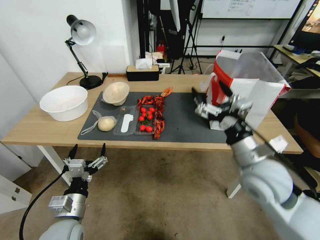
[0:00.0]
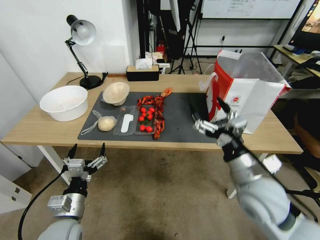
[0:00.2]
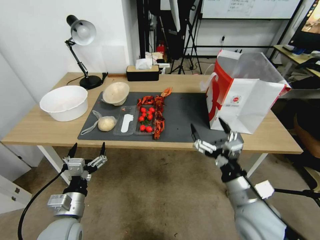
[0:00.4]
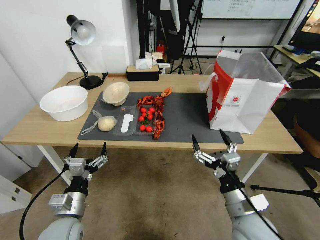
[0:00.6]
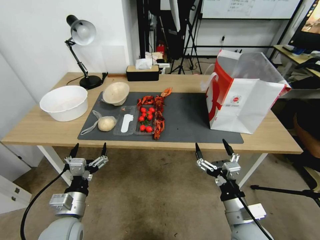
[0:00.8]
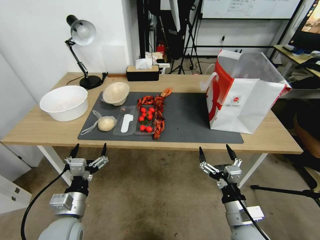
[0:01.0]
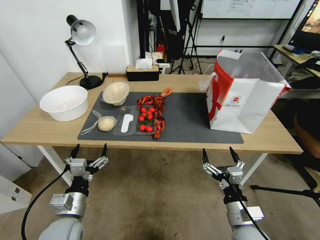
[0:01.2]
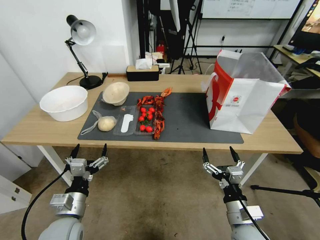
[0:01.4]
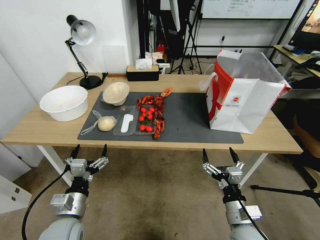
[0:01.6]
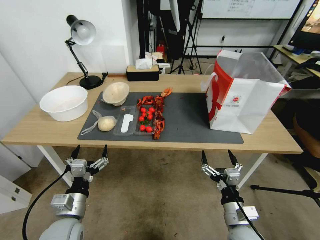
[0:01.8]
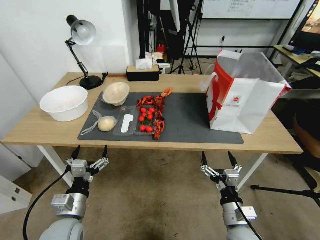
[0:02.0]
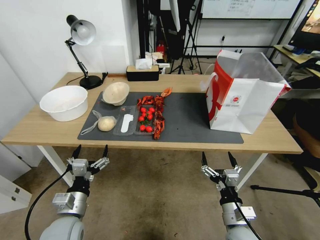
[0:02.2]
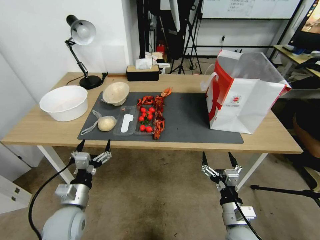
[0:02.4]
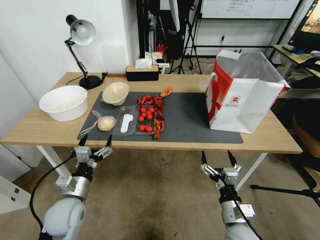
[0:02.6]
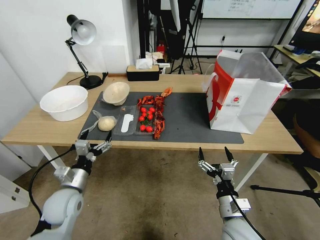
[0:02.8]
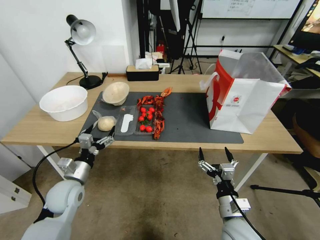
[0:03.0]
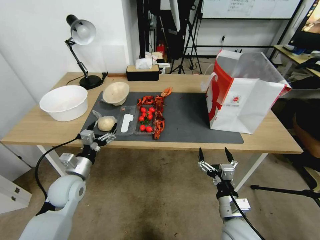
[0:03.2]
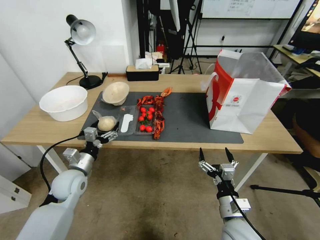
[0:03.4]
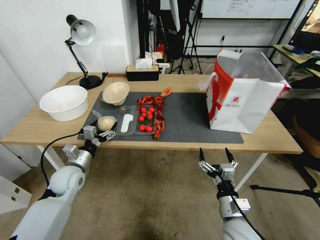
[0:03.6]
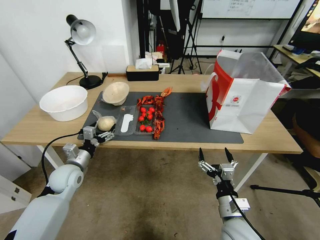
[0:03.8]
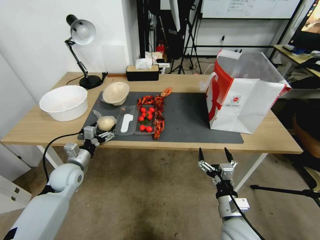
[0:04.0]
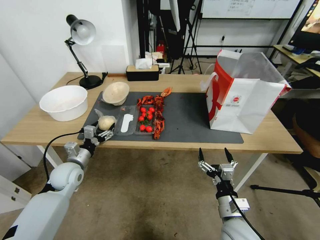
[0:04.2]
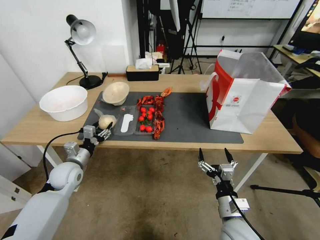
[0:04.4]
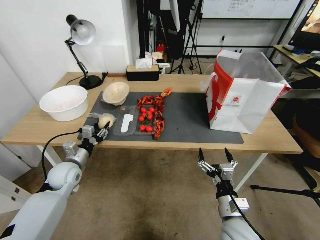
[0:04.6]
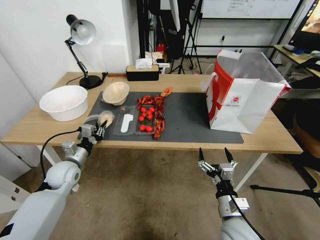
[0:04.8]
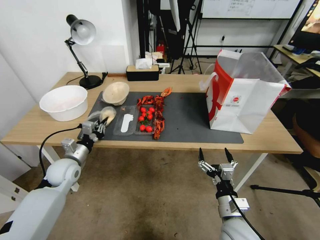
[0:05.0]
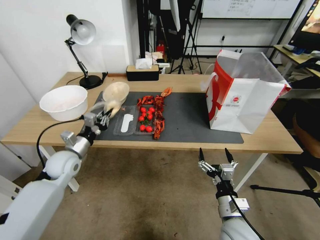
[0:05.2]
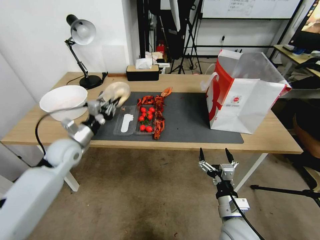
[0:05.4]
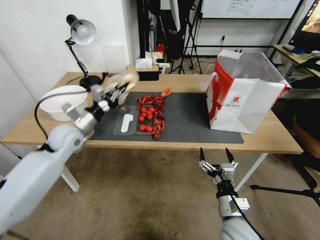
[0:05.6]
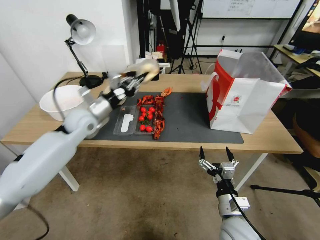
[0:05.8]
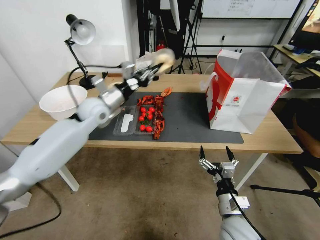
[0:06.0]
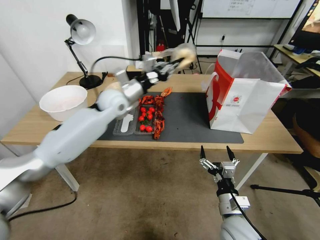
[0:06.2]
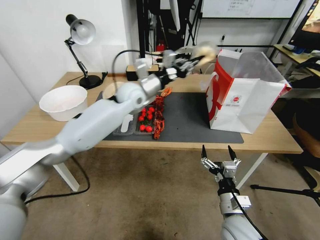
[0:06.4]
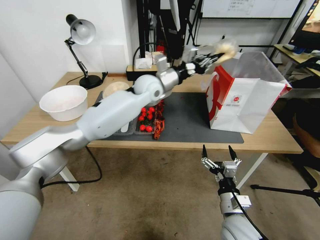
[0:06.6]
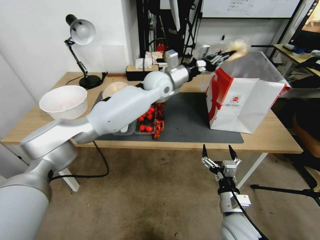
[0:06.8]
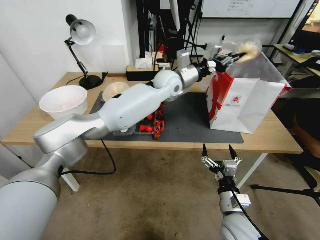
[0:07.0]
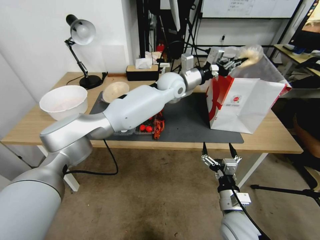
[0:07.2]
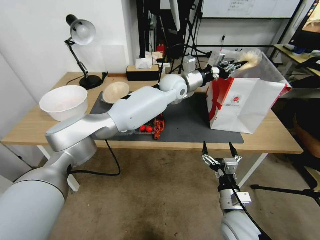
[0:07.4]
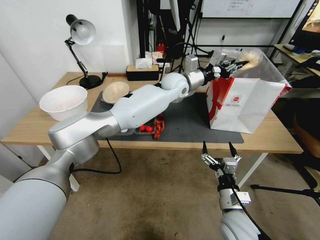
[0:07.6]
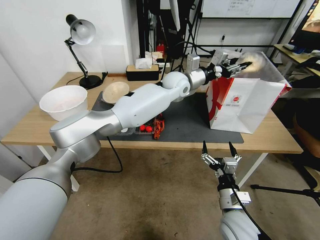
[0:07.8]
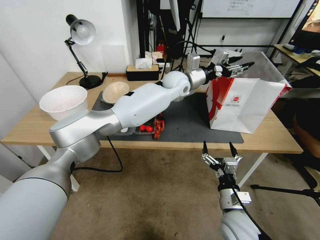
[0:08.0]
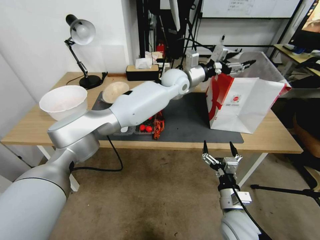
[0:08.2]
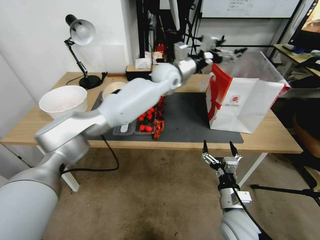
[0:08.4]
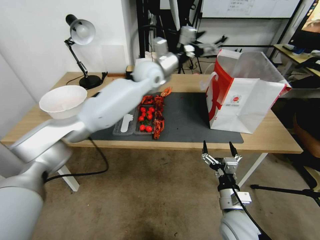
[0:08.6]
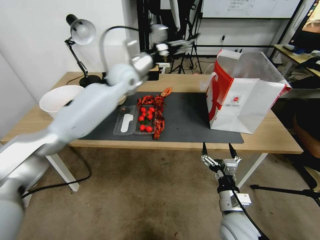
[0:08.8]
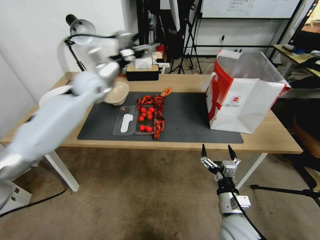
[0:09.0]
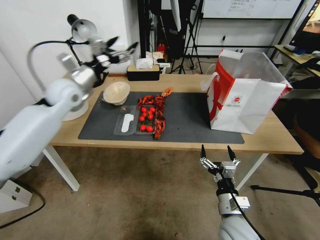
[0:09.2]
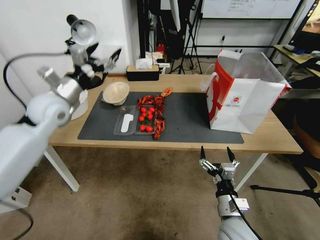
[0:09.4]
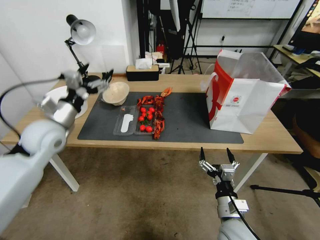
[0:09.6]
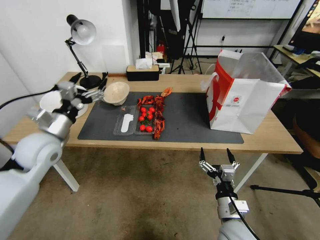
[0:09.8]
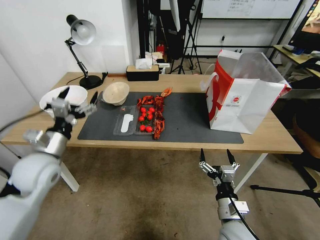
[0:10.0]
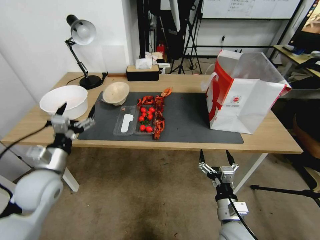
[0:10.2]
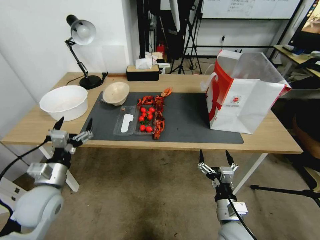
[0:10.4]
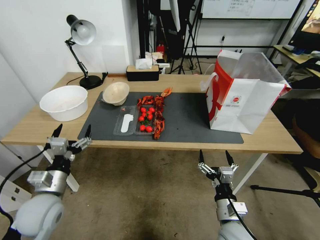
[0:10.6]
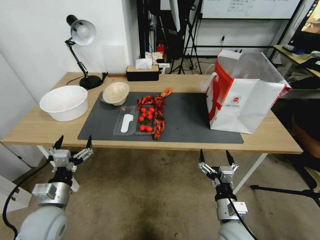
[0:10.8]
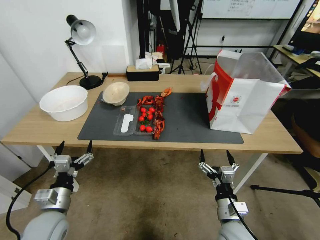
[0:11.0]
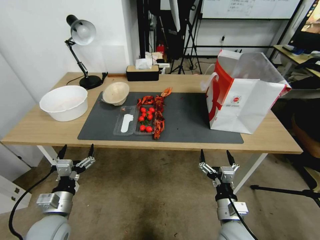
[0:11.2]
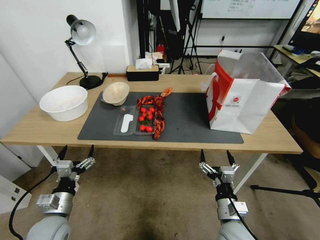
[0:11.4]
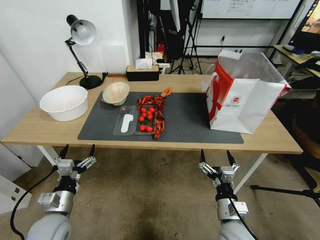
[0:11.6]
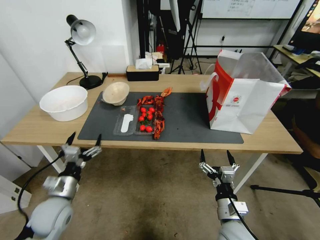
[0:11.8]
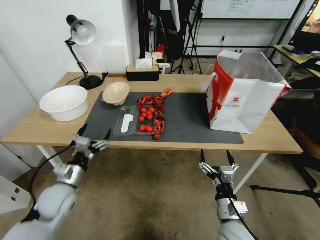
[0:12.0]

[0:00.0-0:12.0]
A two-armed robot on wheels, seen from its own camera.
0:00.0 to 0:01.6: The right gripper heads downward and backward, covering about 25 cm.
0:01.6 to 0:03.0: The left gripper is displaced forward by roughly 10 cm.
0:03.0 to 0:04.4: The left gripper travels forward by roughly 10 cm, and closes up.
0:04.4 to 0:06.0: The left gripper shifts about 25 cm upward, forward and to the right, and closes its fingers.
0:06.0 to 0:07.6: The left gripper shifts some 25 cm to the right.
0:07.6 to 0:09.0: The left gripper is displaced to the left by some 30 cm, and opens its fingers.
0:09.0 to 0:10.4: The left gripper is displaced backward and downward by some 35 cm.
0:10.4 to 0:12.0: The left gripper heads downward, covering roughly 5 cm.

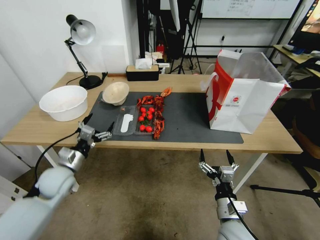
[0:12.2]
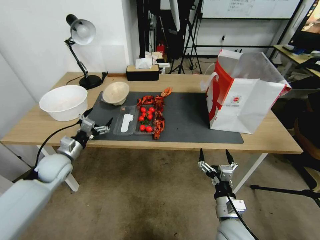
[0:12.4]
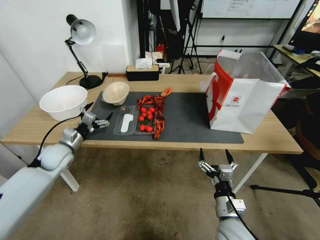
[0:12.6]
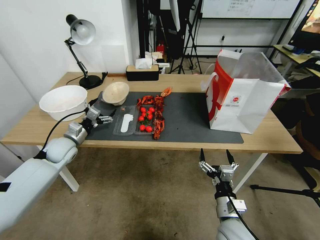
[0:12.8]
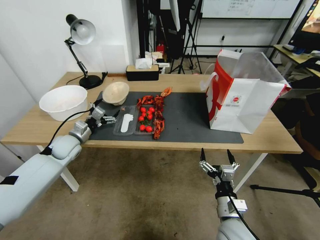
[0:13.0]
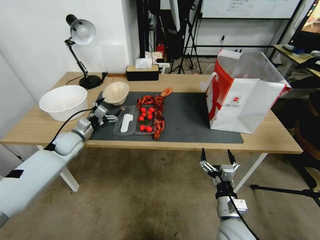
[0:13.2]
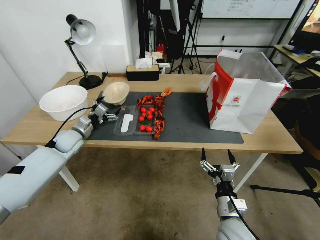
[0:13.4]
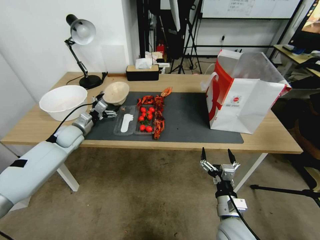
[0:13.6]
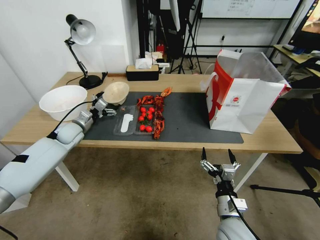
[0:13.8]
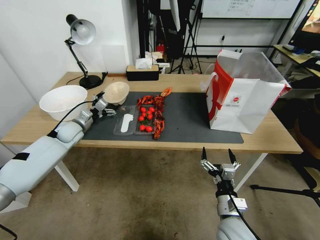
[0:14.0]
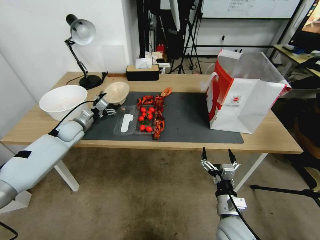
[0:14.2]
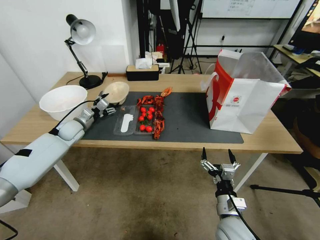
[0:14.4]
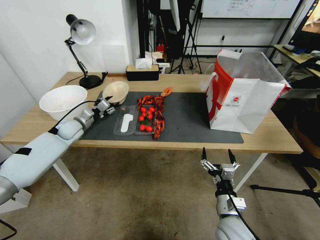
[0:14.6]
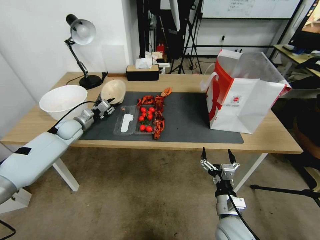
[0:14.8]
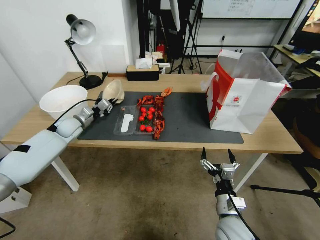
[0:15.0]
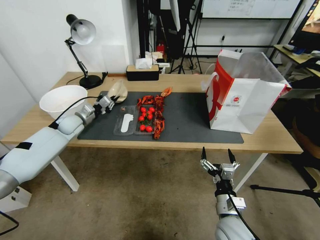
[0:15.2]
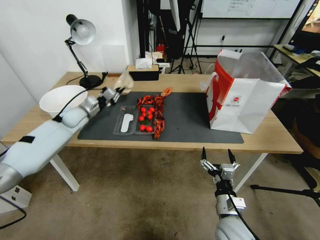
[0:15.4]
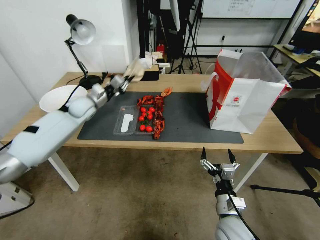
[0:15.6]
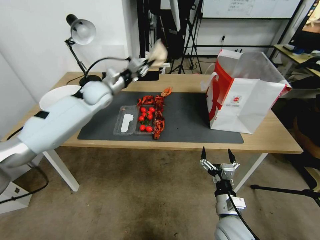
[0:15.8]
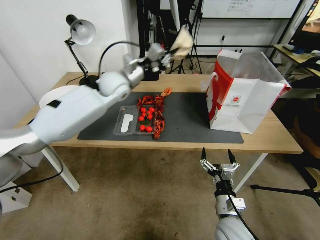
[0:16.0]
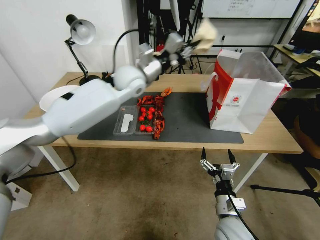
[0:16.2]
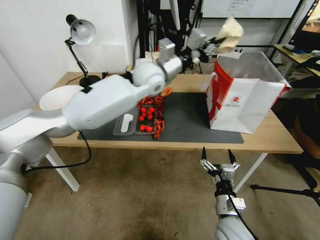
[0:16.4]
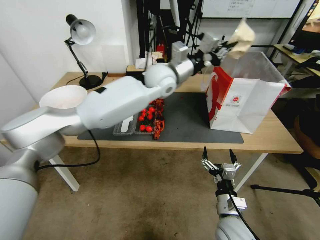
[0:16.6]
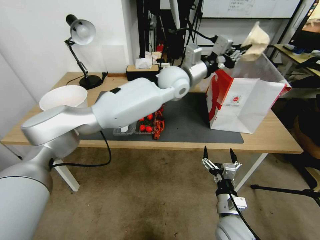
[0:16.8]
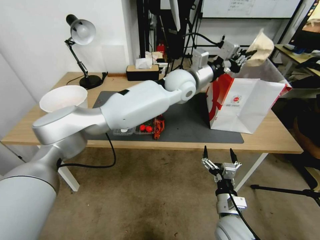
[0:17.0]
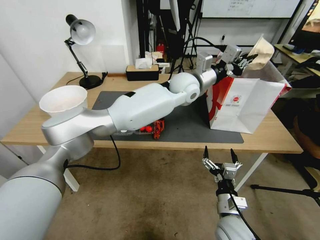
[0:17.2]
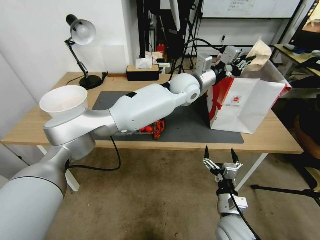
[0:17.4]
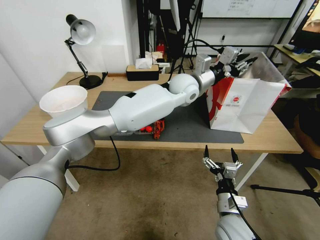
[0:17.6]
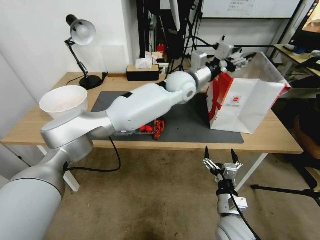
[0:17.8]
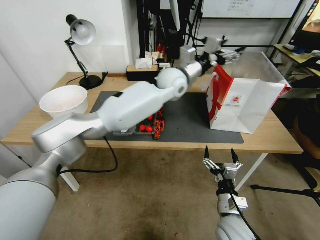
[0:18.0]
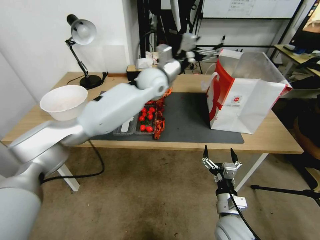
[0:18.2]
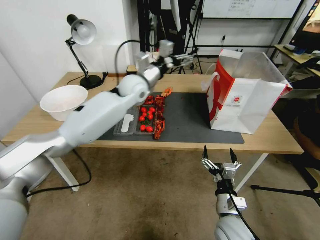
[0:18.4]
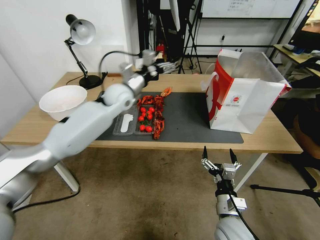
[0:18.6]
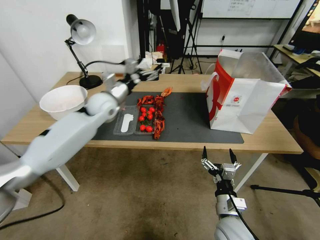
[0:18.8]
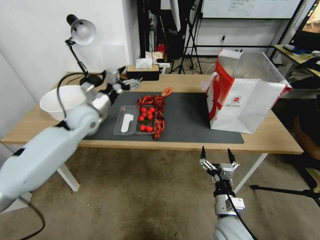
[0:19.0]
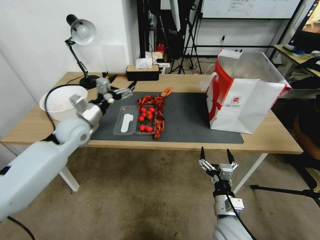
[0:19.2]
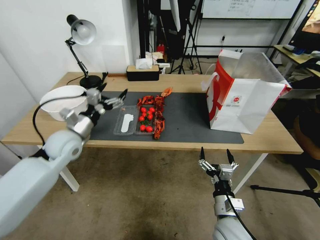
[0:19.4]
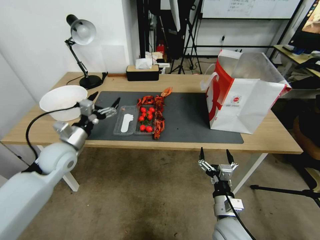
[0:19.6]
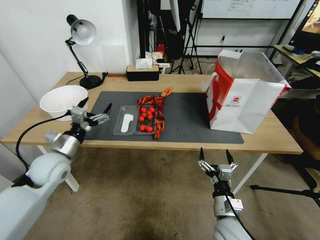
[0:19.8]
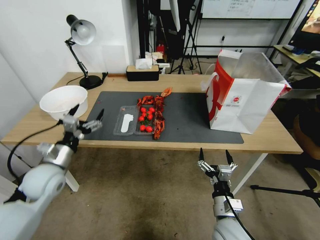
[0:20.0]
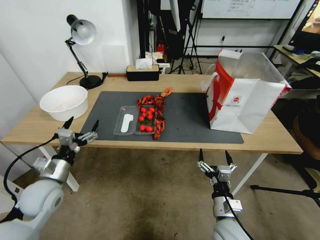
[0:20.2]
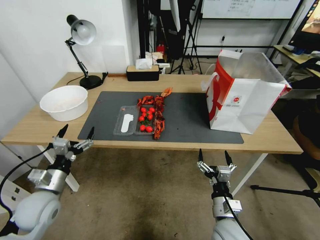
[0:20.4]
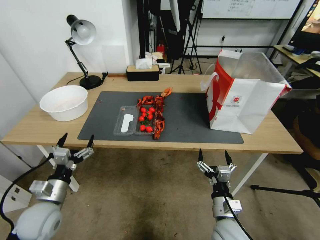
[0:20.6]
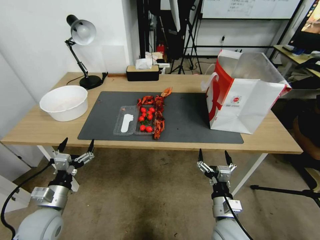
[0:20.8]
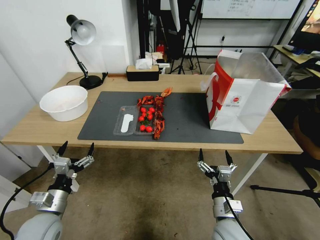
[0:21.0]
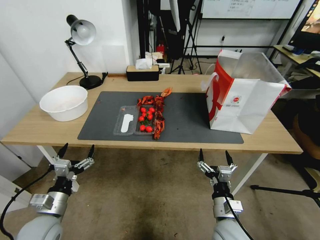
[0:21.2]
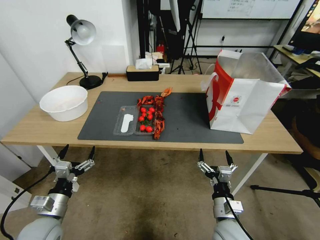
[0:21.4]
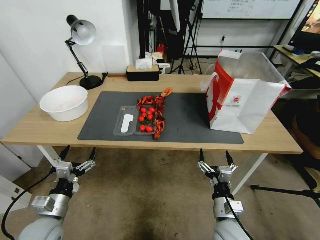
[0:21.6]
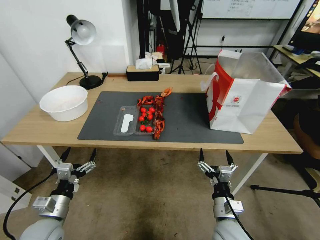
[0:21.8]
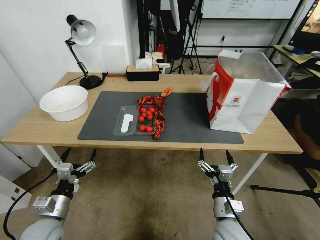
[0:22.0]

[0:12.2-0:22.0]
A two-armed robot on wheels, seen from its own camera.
0:12.2 to 0:13.6: The left gripper heads forward, covering approximately 15 cm.
0:13.6 to 0:15.0: The left gripper shifts some 5 cm forward, and closes.
0:15.0 to 0:16.4: The left gripper heads to the right and upward, covering some 35 cm.
0:16.4 to 0:17.8: The left gripper heads to the right, covering about 15 cm, and opens.
0:17.8 to 0:19.2: The left gripper is displaced to the left by approximately 35 cm, and opens its fingers.
0:19.2 to 0:20.6: The left gripper is displaced backward and downward by roughly 25 cm.
0:20.6 to 0:22.0: The left gripper moves approximately 5 cm.
